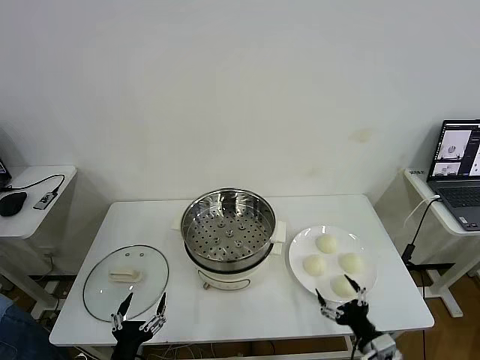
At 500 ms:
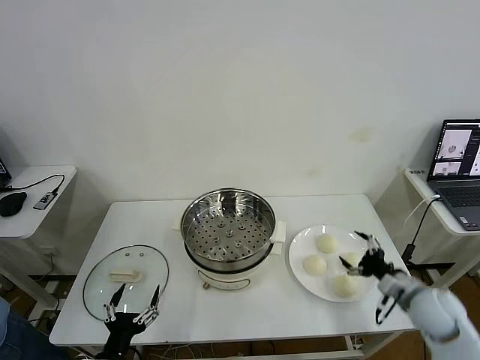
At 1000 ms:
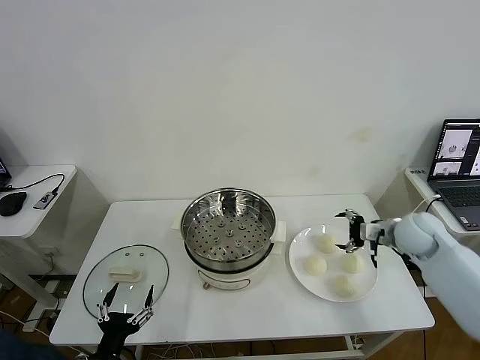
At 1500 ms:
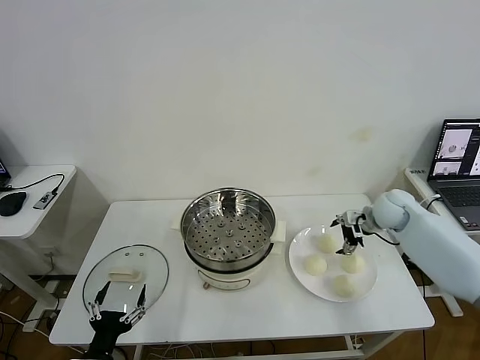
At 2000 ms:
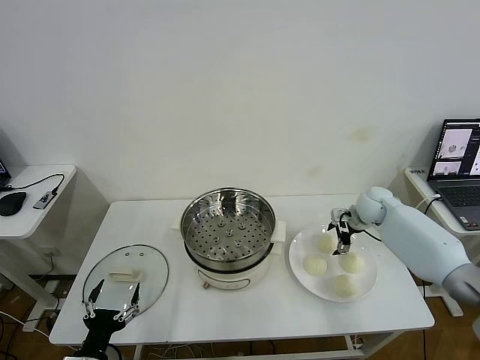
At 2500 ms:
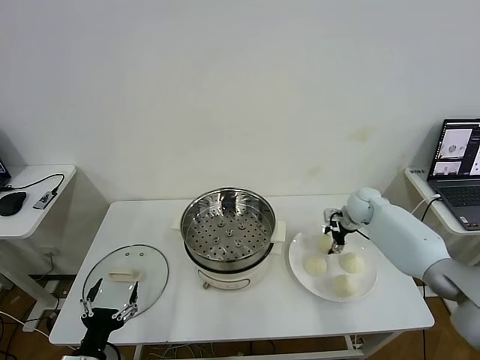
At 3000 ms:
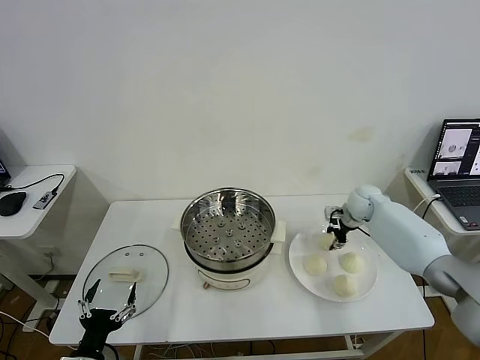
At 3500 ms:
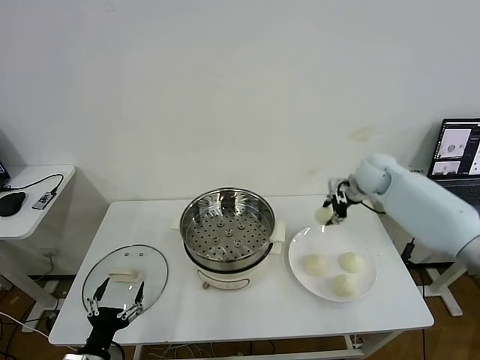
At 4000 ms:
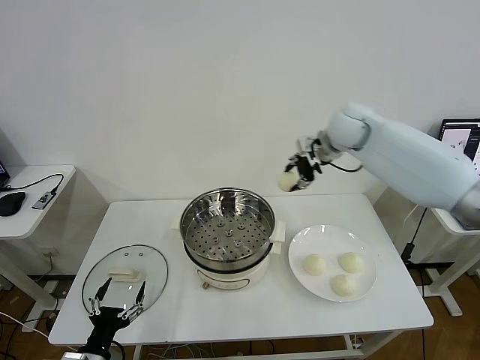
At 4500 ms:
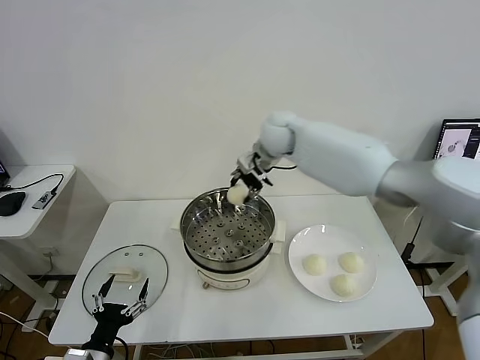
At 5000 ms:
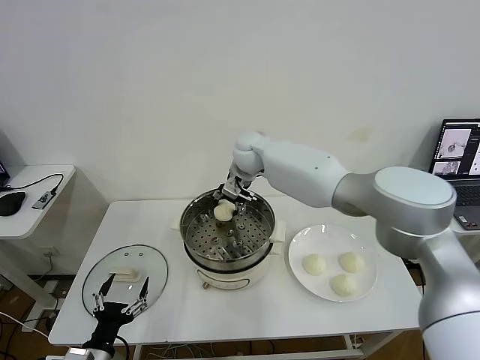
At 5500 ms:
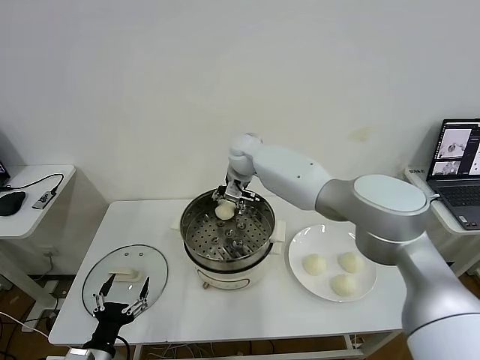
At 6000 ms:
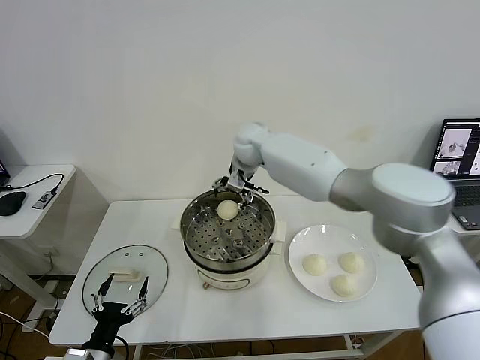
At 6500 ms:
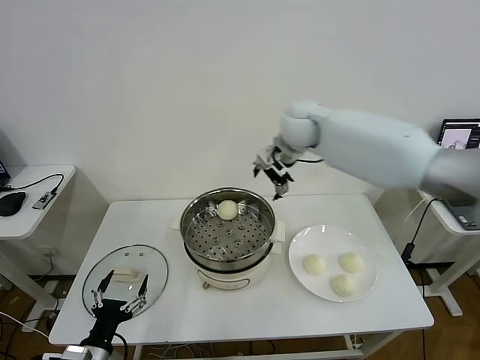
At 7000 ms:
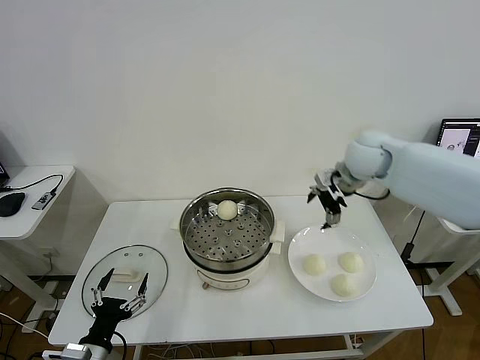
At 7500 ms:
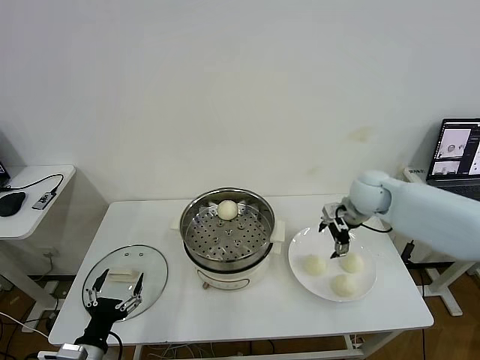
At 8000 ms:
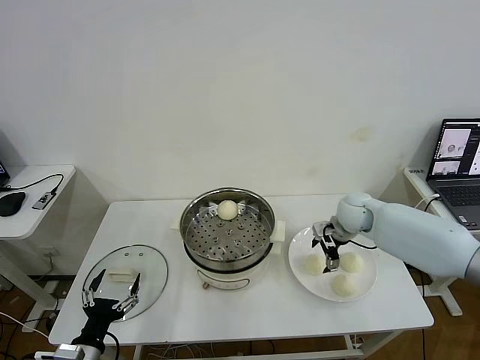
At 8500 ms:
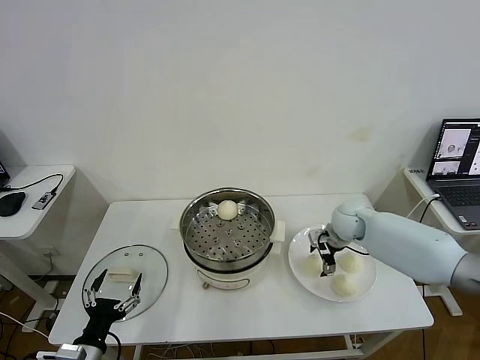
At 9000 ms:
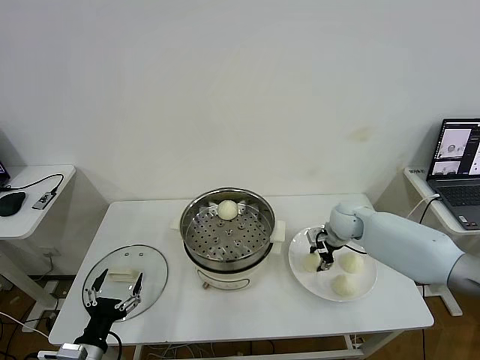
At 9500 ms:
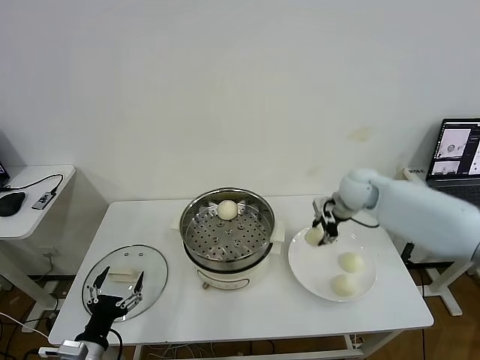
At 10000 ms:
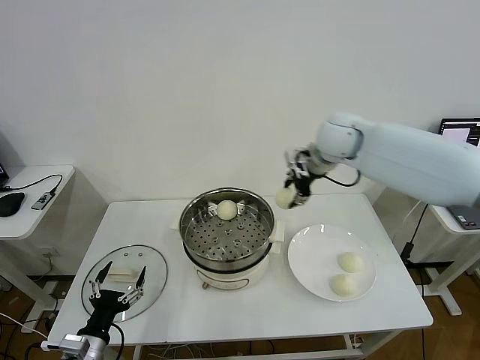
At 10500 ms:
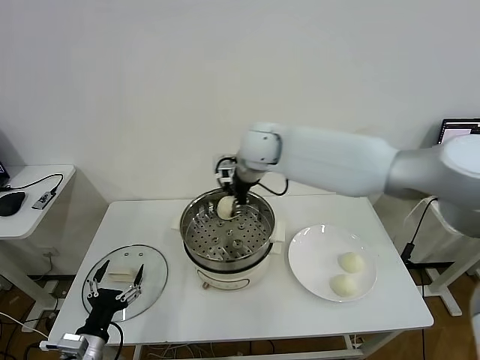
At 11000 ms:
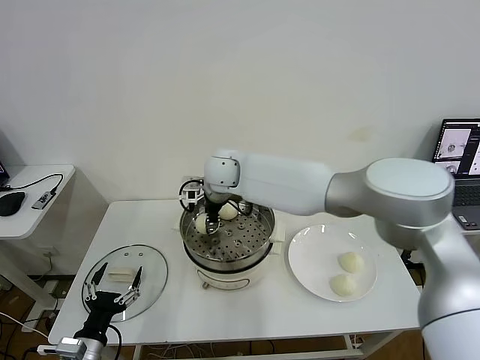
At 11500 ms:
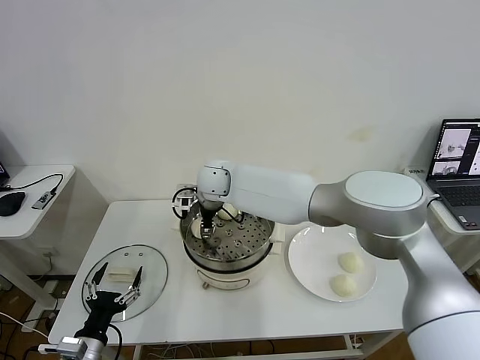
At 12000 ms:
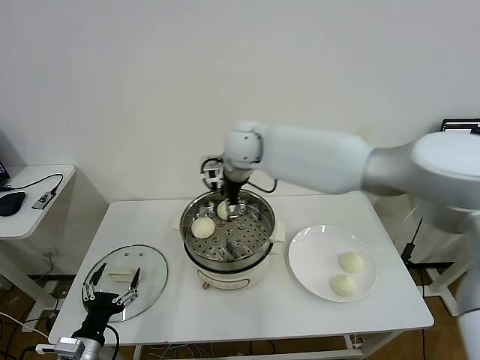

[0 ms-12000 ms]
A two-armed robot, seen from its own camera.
Task of the whole recording: take steamed baozi put them in steamer then cover it.
Step, 0 ms to 2500 ms: Grasp the baozi in the plate with right gripper.
Step, 3000 ms to 5500 ms: Place the baozi on the steamer with right gripper.
Step, 6000 ms to 9000 ms: Grasp the baozi in the plate with right gripper.
Step, 9500 ms to 11500 ms: Place the baozi on the steamer with right gripper.
2000 ms to 4000 ms: The right gripper is displaced upward and to the left by roughly 30 cm, and closes.
4000 ms to 6000 ms: The right gripper is displaced to the left by about 15 cm, and opens up.
6000 ms to 8000 ms: The right gripper is displaced to the right, downward and backward by some 30 cm.
8000 ms to 10000 ms: The right gripper travels upward and to the left by roughly 25 cm, and closes.
10000 ms to 12000 ms: The right gripper travels to the left by approximately 10 cm, and opens its fingers.

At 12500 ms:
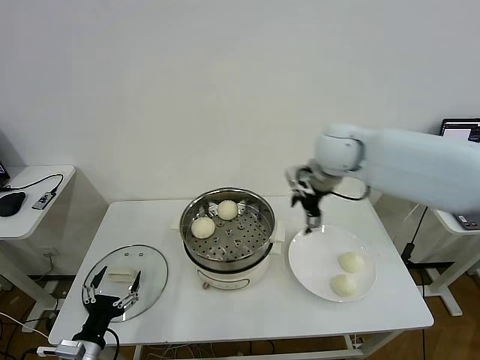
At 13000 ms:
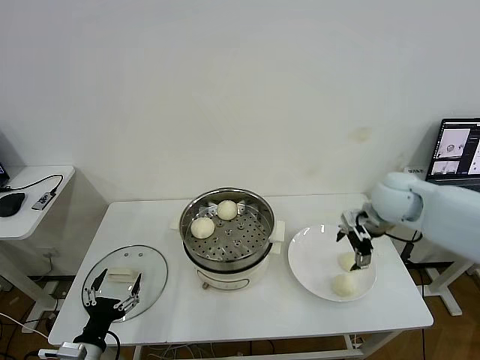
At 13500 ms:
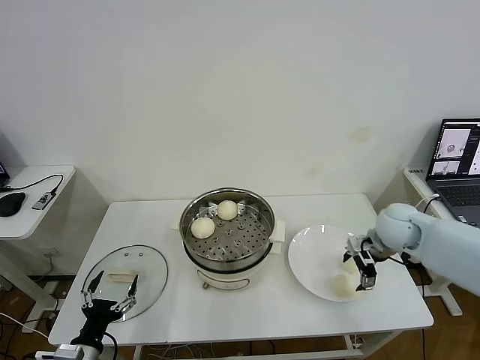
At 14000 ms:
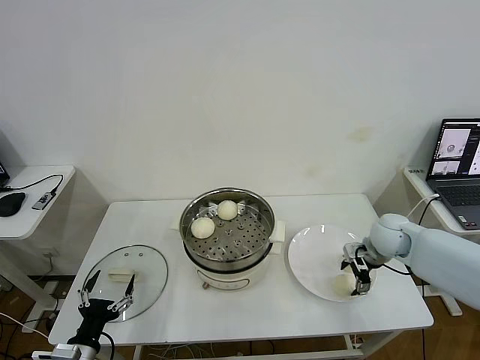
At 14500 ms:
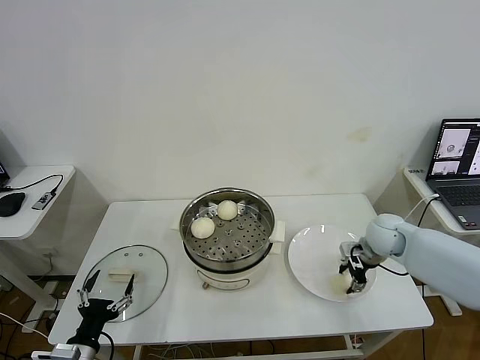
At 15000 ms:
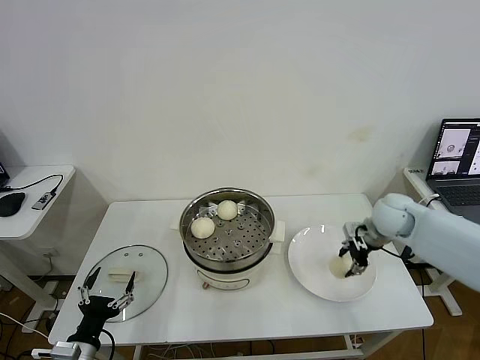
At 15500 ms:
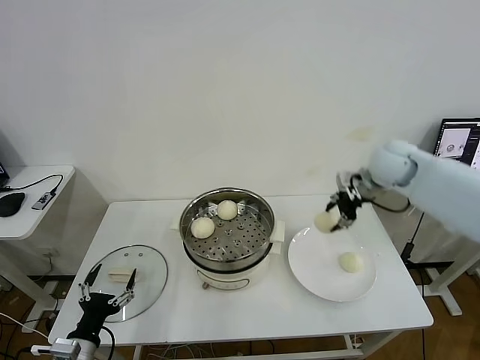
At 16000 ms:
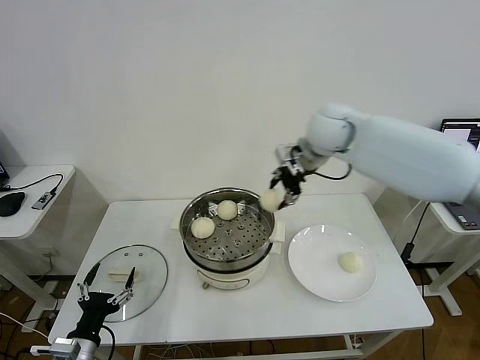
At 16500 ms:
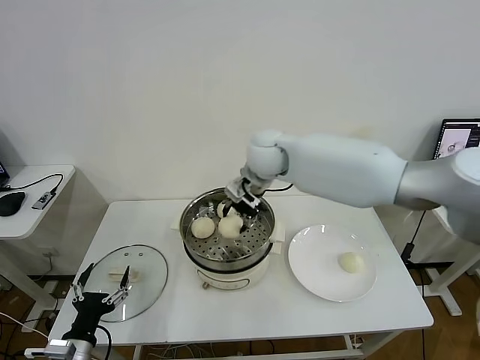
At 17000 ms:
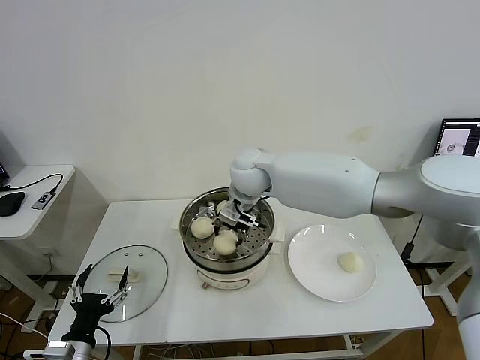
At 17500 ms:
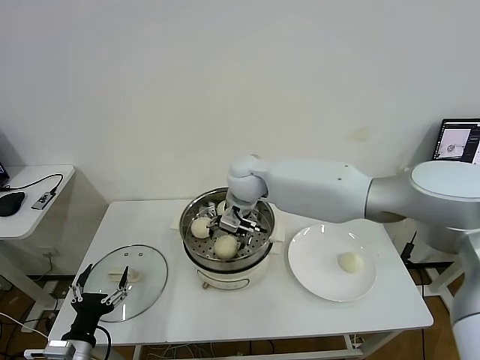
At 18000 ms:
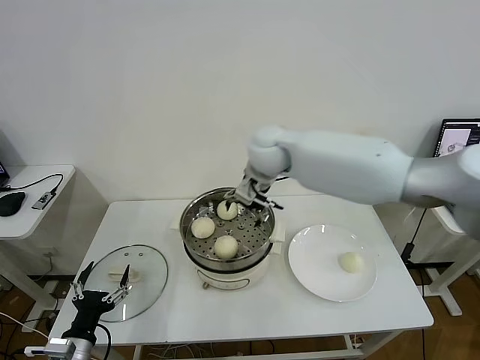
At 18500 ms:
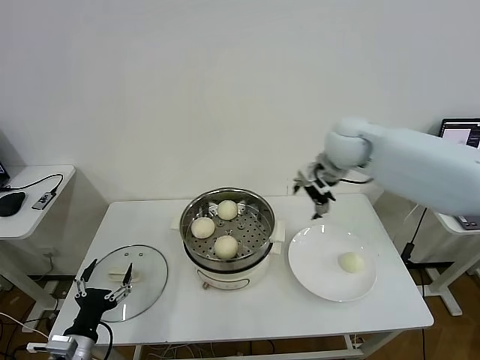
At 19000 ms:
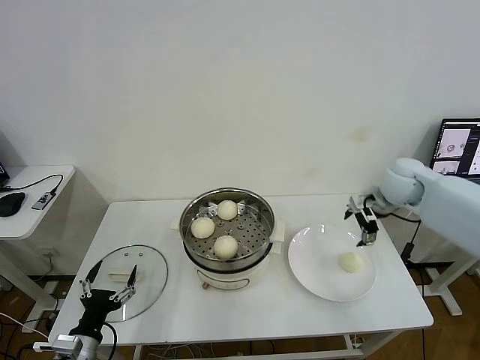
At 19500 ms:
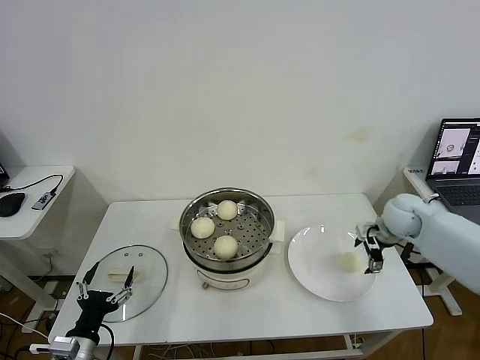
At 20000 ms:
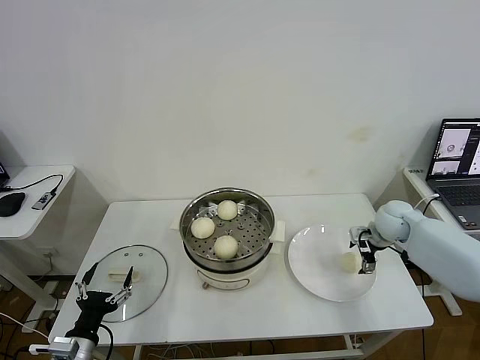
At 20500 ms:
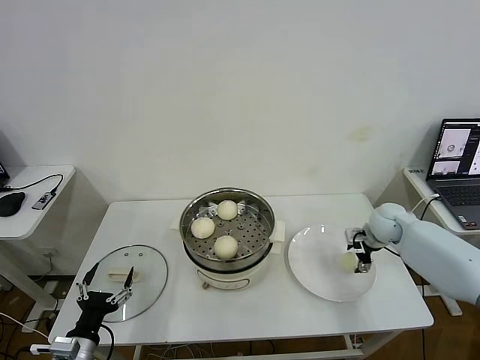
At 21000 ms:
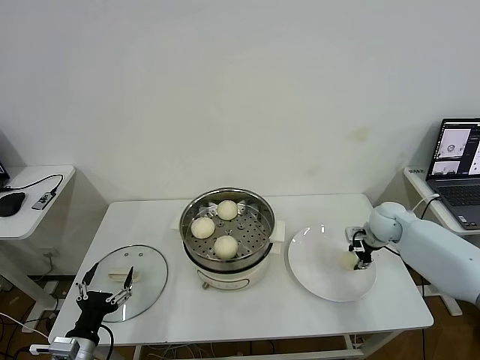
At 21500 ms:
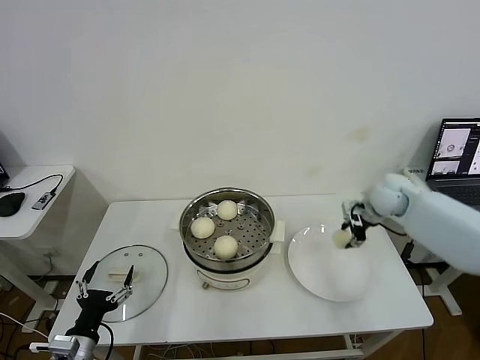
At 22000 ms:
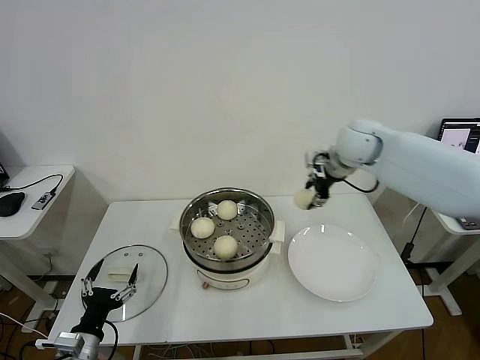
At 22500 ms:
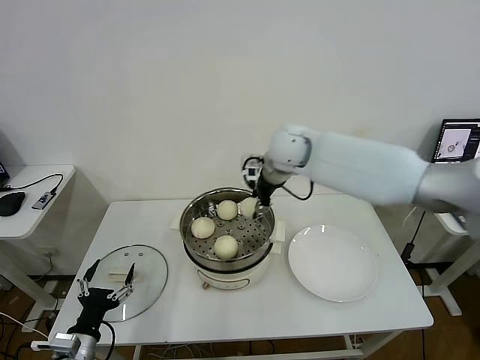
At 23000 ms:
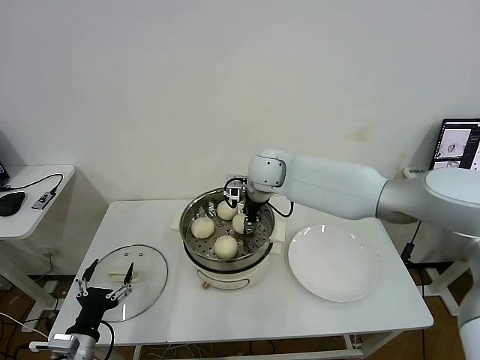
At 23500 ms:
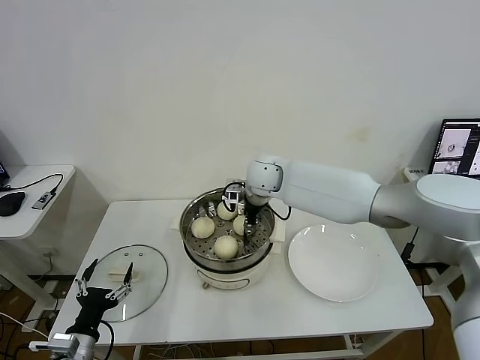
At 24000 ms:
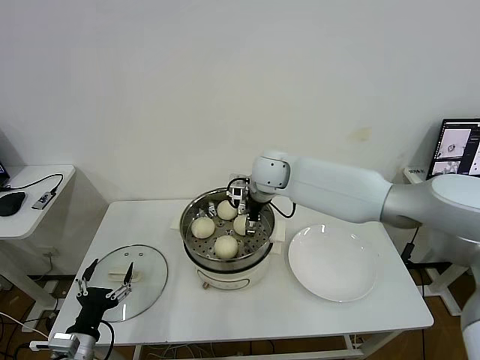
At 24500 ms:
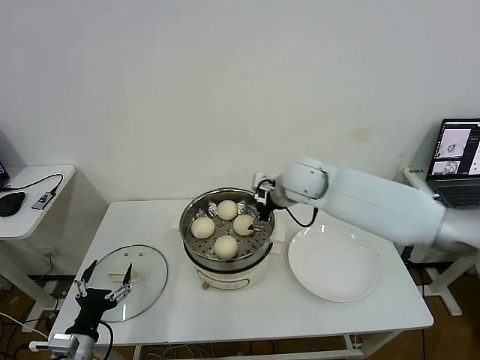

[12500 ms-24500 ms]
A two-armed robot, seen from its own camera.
Task of the whole recording: take steamed baozi put them in steamer then cover it.
Step, 12500 ms to 14500 ms: Grasp the baozi in the plate with right gripper.
Step, 15000 ms to 17500 ms: Place the baozi on the steamer with right gripper.
Step, 18000 ms to 21000 ms: Grasp the baozi in the plate with right gripper.
Step, 21500 ms to 24000 ms: Place the baozi on the steamer with right gripper.
12500 ms to 14500 ms: The right gripper goes some 25 cm downward and to the right, and closes.
14500 ms to 16500 ms: The right gripper goes about 35 cm to the left and upward.
16500 ms to 18500 ms: The right gripper heads to the right, covering approximately 20 cm, and opens.
18500 ms to 20500 ms: The right gripper travels downward and to the right by roughly 25 cm.
20500 ms to 22500 ms: The right gripper travels to the left and upward by approximately 35 cm, and closes.
22500 ms to 24500 ms: The right gripper moves about 10 cm, and opens its fingers.

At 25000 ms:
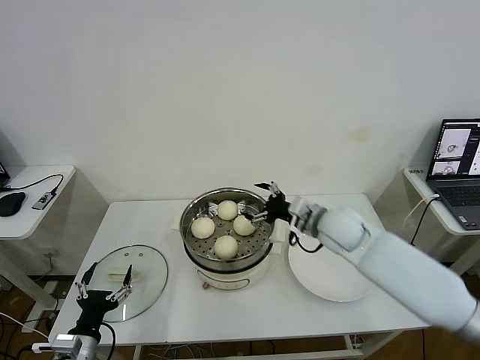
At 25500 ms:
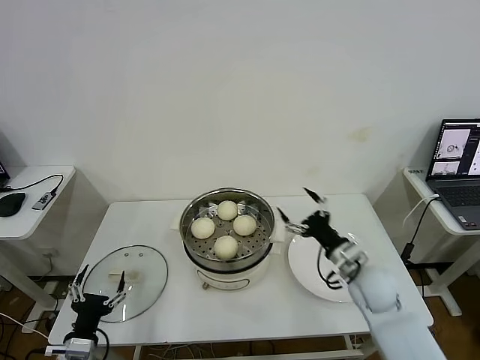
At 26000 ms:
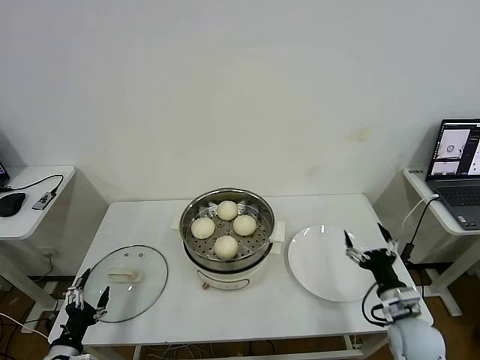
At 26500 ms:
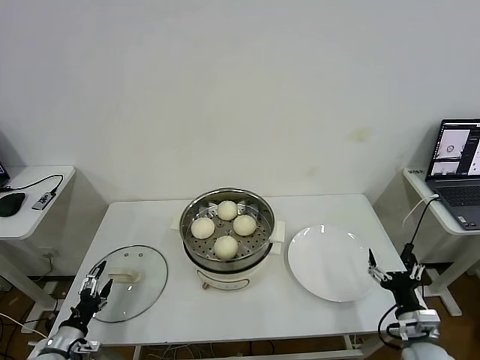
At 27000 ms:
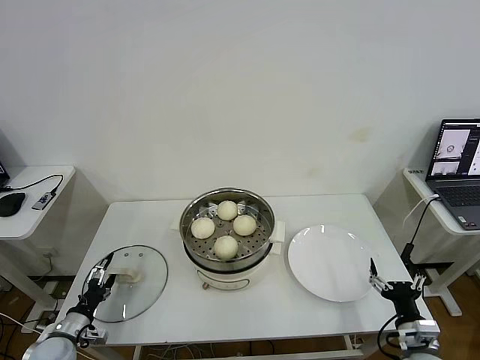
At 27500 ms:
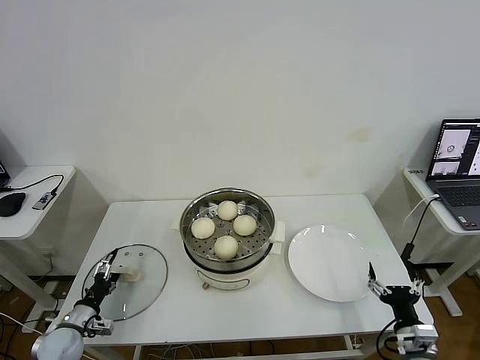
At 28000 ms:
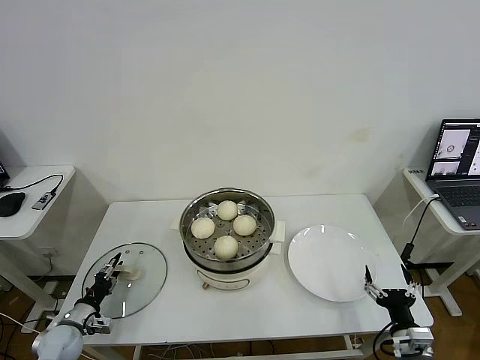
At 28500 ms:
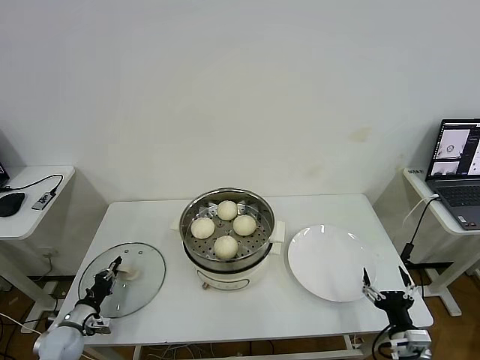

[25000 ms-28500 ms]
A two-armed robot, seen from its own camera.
Task of the whole recording: take steamed baozi put them in steamer then cover it.
25000 ms to 27000 ms: The right gripper heads backward, downward and to the right, covering roughly 35 cm. The left gripper moves to the left, downward and forward, about 15 cm.
27000 ms to 28500 ms: The left gripper closes its fingers.
